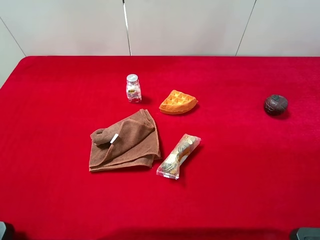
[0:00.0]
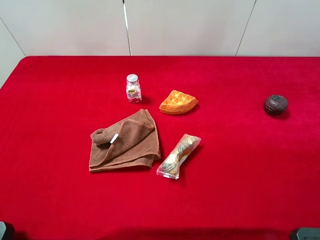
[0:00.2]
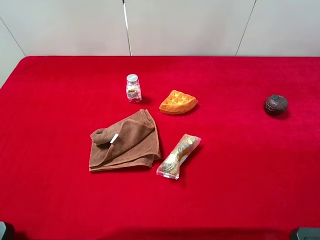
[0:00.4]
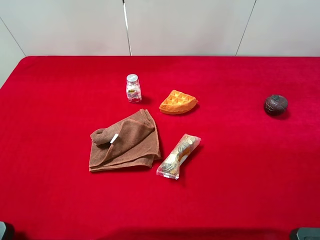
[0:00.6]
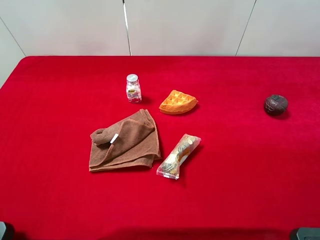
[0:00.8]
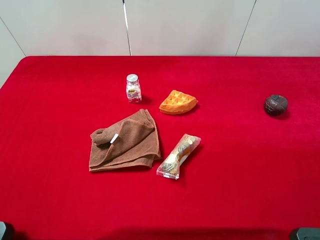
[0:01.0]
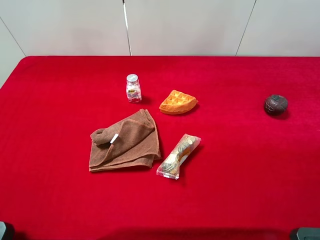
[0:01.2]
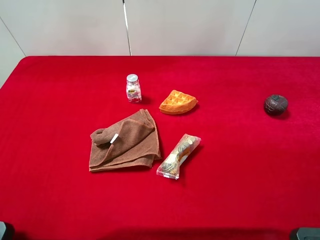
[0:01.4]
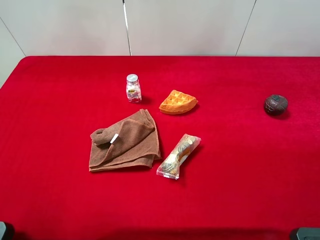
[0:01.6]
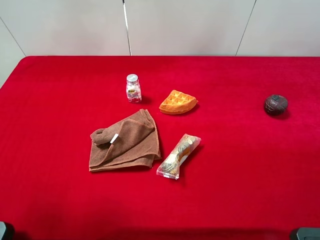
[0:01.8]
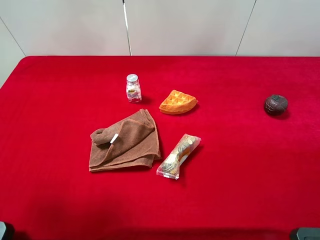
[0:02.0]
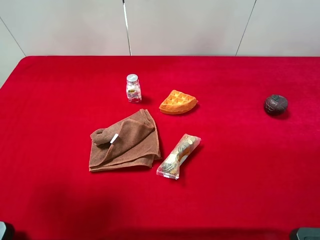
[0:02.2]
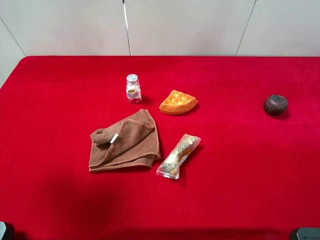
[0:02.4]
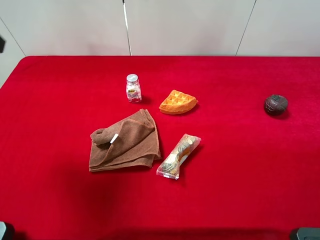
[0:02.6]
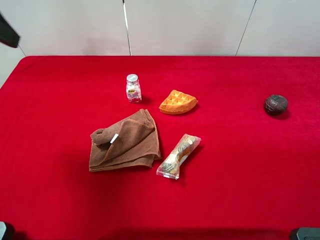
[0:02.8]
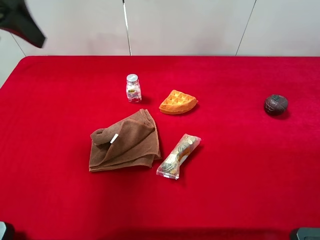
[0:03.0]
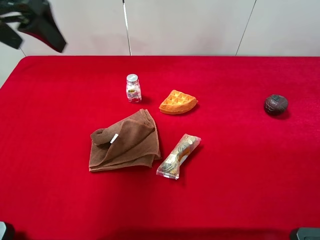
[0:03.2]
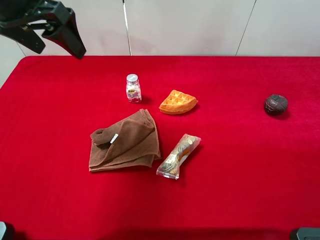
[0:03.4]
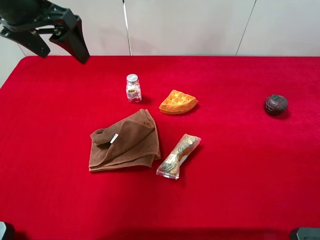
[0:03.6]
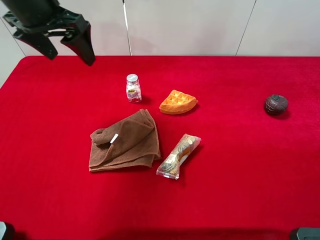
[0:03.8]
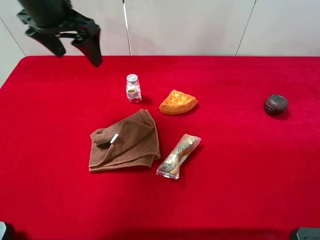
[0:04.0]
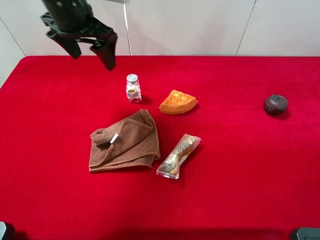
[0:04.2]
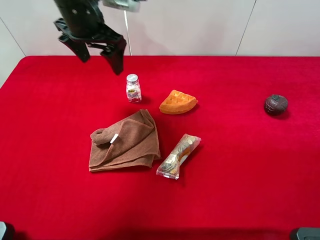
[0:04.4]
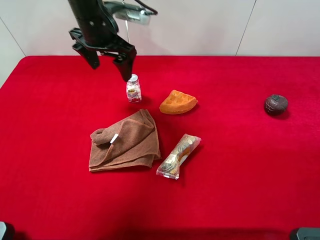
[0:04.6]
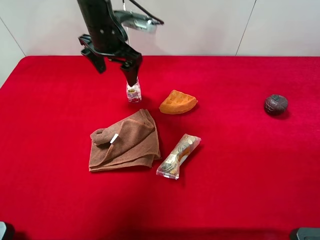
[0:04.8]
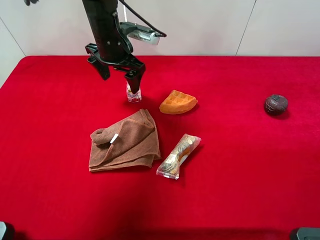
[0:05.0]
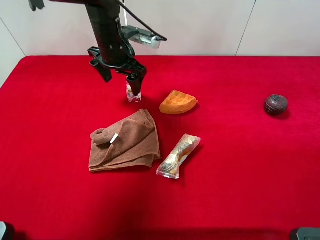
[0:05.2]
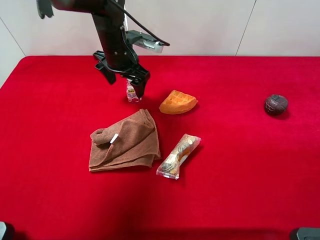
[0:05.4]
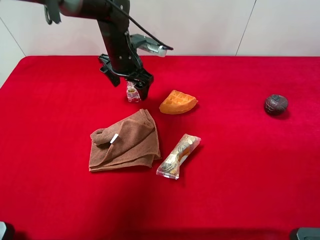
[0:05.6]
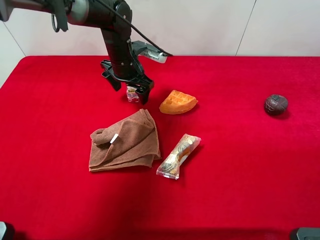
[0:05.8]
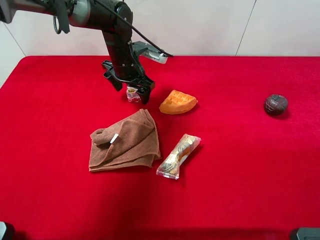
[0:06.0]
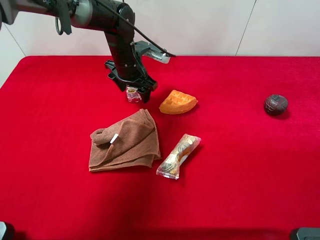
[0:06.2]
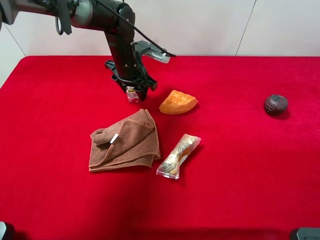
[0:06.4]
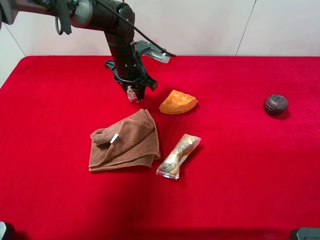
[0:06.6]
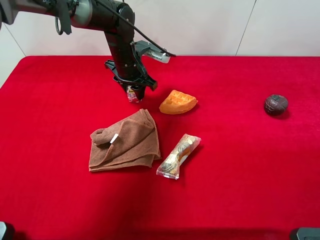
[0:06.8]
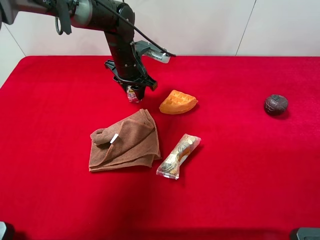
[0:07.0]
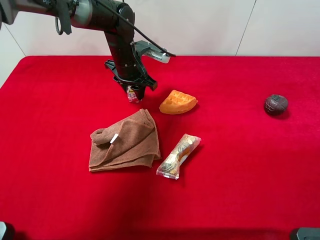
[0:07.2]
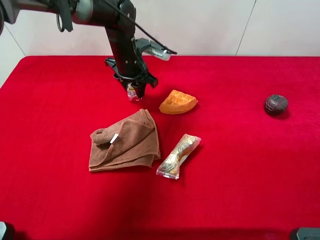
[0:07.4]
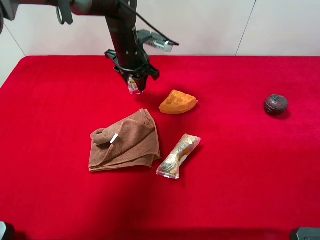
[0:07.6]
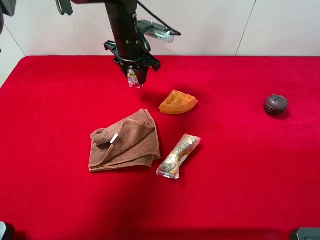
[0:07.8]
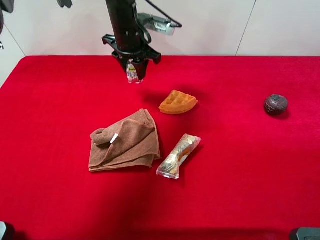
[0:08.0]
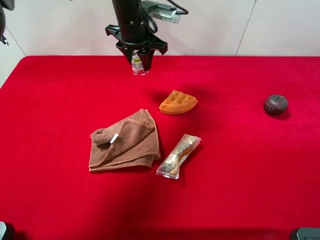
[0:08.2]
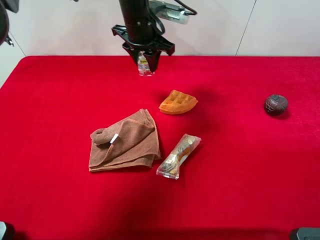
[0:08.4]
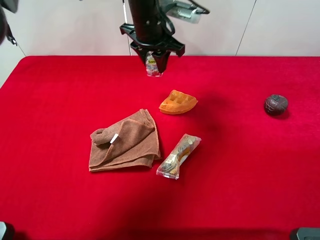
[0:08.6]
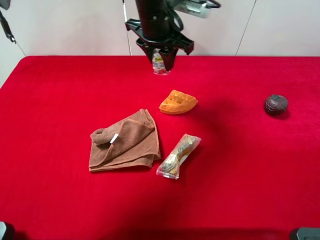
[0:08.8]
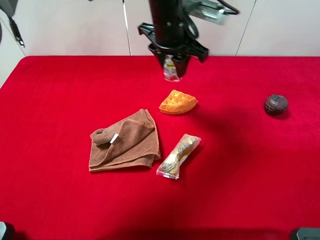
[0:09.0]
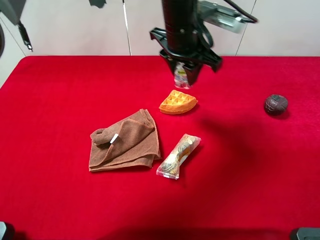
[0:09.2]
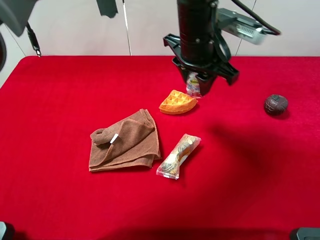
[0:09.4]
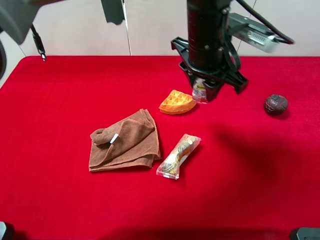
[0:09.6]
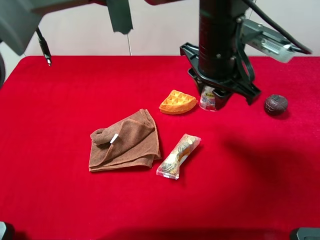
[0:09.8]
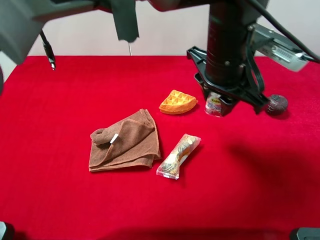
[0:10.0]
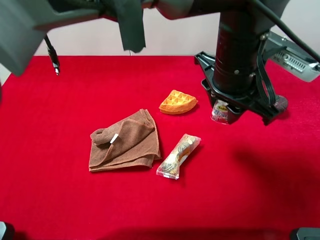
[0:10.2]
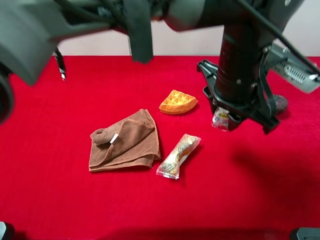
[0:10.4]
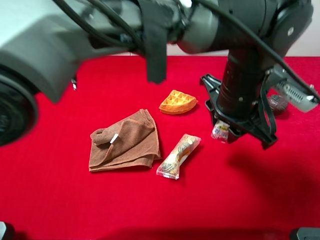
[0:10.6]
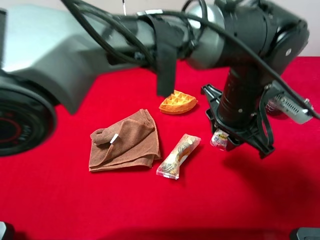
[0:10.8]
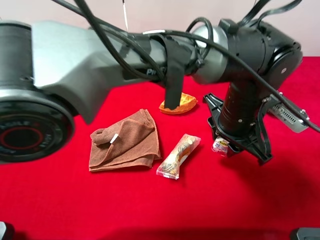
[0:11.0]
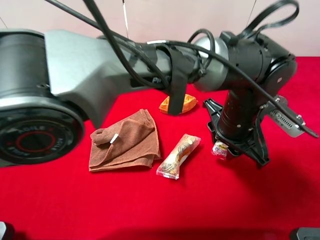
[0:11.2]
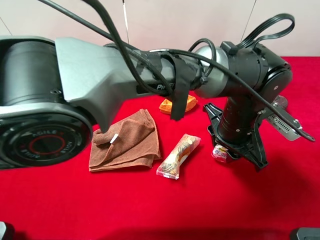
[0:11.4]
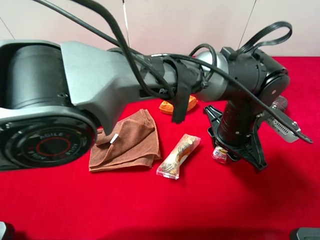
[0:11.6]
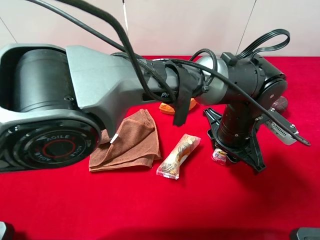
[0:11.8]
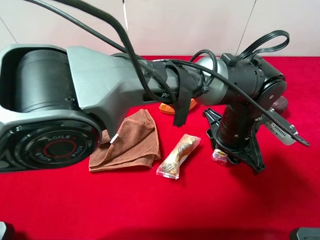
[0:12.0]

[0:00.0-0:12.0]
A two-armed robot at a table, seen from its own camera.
Task of the whole recording: the gripper move the object.
Step, 0:00.0 to 0:06.8: Grasp the mint candy with the left gripper.
0:01.6 to 0:03.0: The left gripper goes roughly 20 cm forward.
0:03.0 to 0:04.4: The left gripper goes some 20 cm to the right, forward and downward.
0:04.4 to 0:06.0: The left gripper heads downward, covering about 15 cm.
0:06.0 to 0:07.6: The left gripper closes up.
0:07.6 to 0:09.0: The left gripper moves to the right, upward and backward, about 15 cm.
0:09.0 to 0:10.4: The left gripper heads backward and to the right, covering about 15 cm.
0:10.4 to 0:12.0: The left gripper heads downward, covering roughly 10 cm.

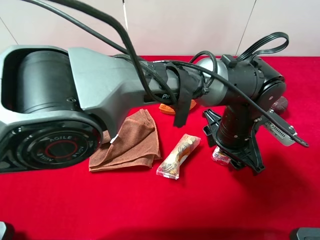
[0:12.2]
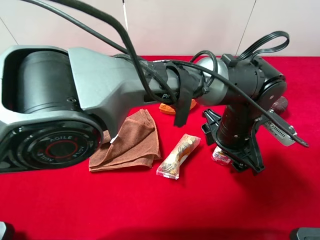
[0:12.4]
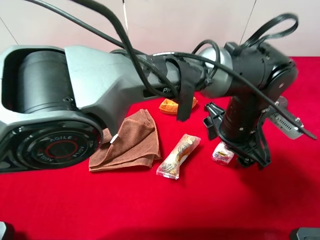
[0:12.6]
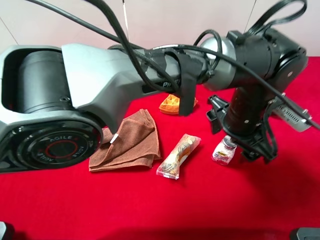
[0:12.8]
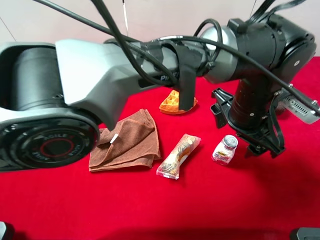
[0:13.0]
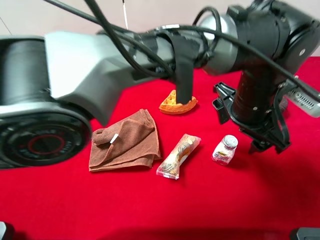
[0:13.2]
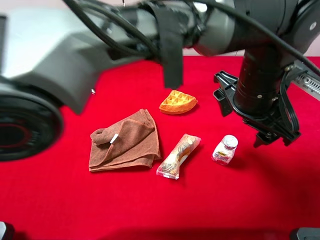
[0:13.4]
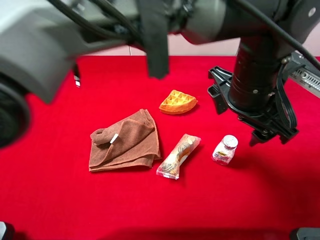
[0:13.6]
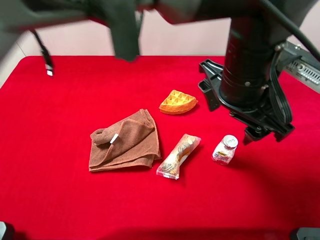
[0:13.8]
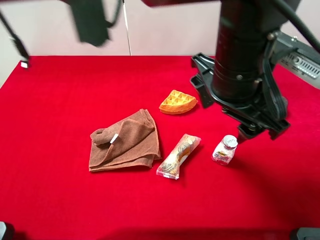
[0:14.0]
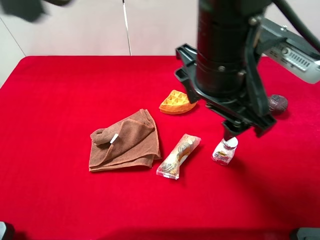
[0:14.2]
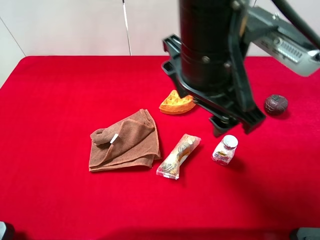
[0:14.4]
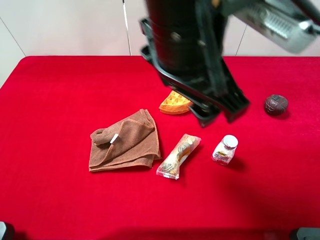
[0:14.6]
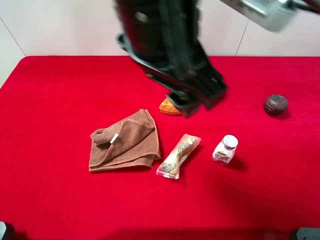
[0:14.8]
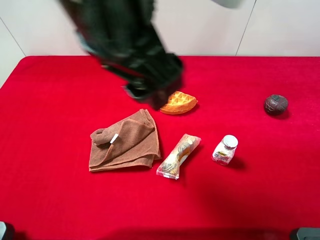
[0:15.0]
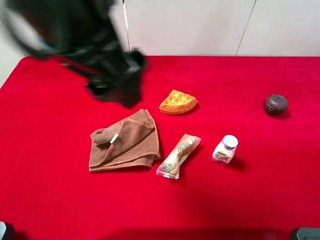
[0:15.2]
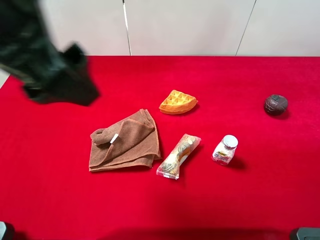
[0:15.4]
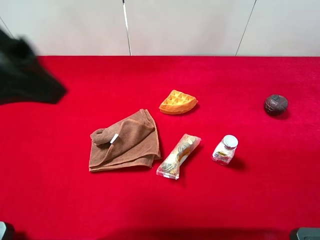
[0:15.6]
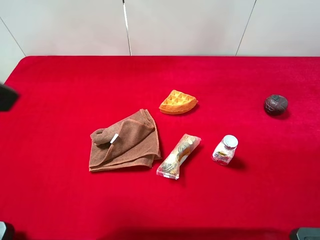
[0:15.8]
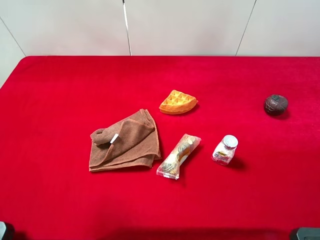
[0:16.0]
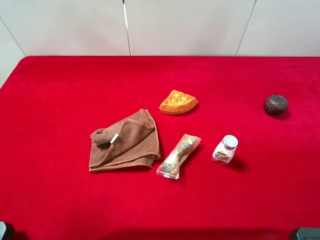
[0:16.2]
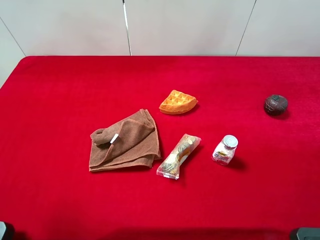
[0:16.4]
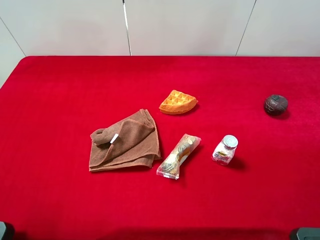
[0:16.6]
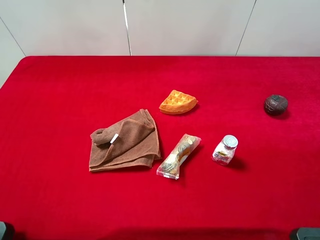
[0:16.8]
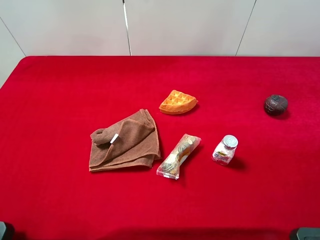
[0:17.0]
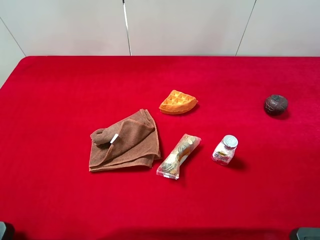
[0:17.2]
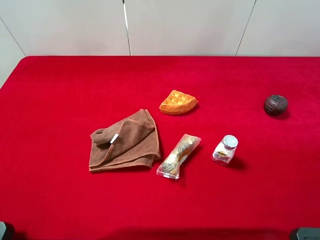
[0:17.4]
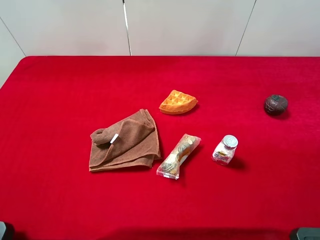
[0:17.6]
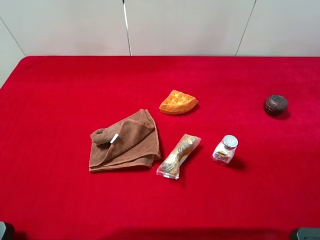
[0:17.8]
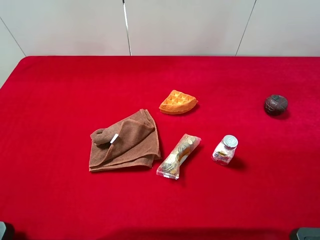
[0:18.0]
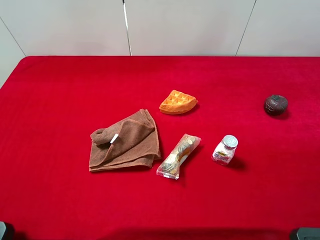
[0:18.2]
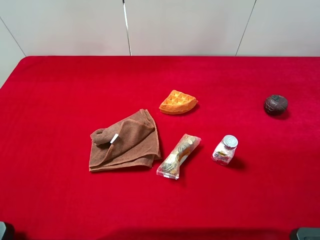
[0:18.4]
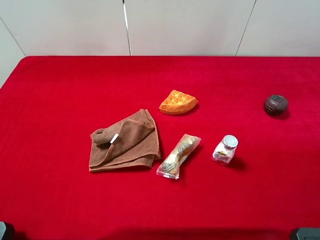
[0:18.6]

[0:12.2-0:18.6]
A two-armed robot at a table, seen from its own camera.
Task of the whole recording: the gripper move the object.
0:12.2 to 0:13.8: The left gripper heads upward, covering about 15 cm.
0:13.8 to 0:15.4: The left gripper is displaced to the left and upward by about 30 cm.
0:15.4 to 0:17.0: The left gripper is displaced to the left, backward and downward by about 20 cm.
